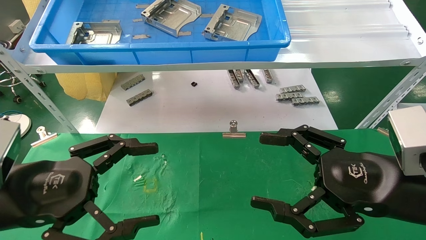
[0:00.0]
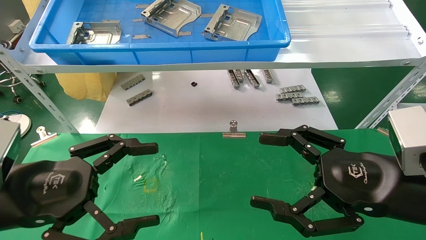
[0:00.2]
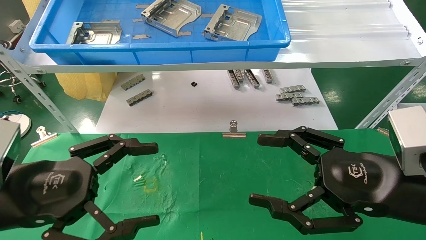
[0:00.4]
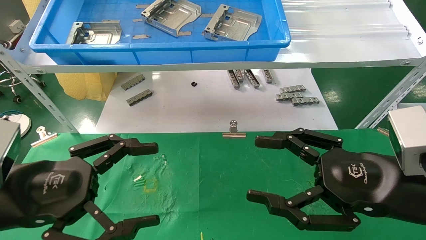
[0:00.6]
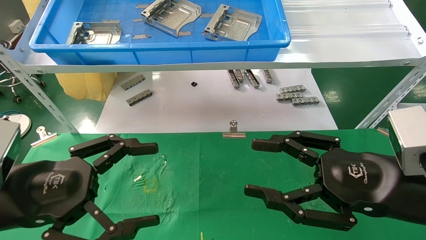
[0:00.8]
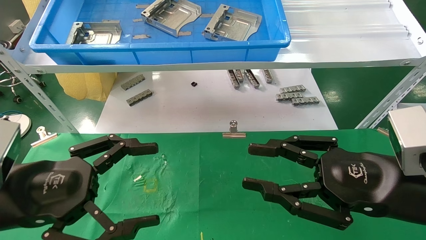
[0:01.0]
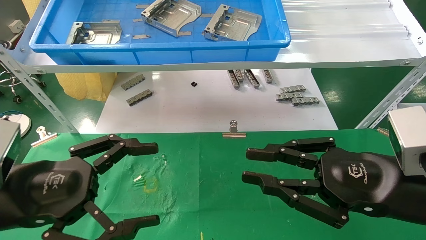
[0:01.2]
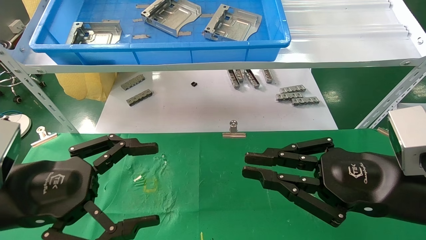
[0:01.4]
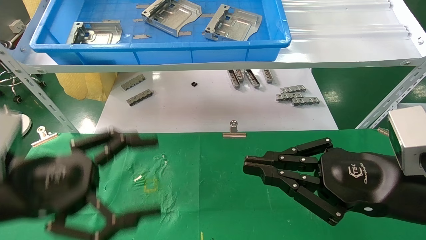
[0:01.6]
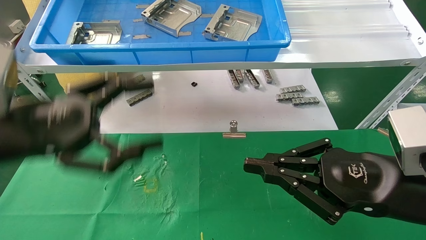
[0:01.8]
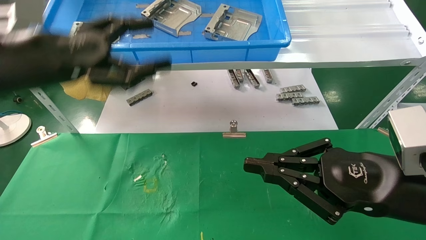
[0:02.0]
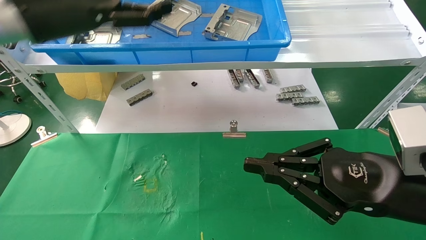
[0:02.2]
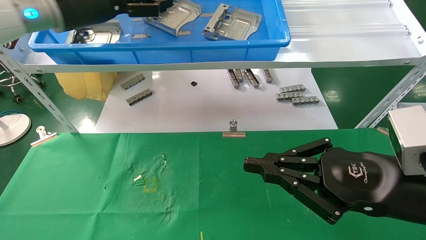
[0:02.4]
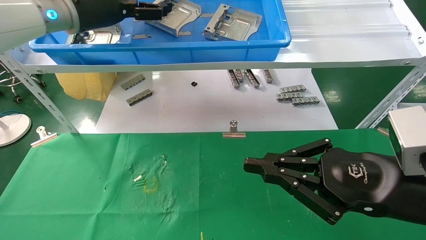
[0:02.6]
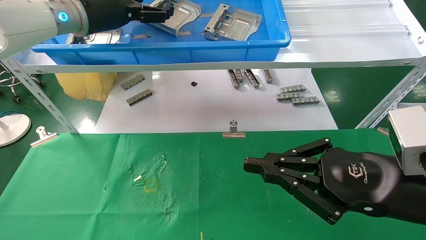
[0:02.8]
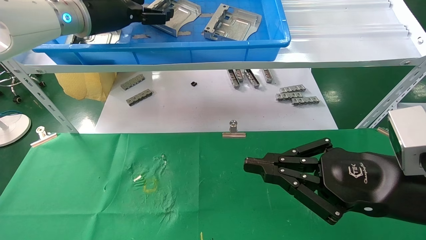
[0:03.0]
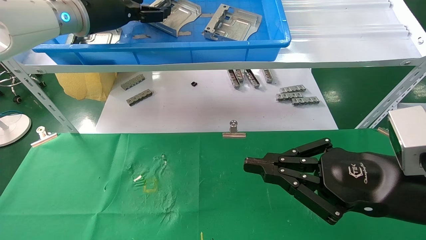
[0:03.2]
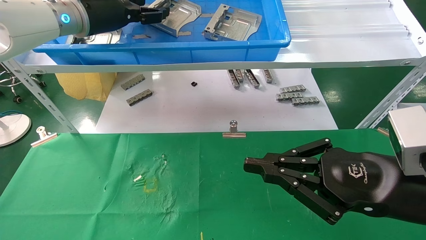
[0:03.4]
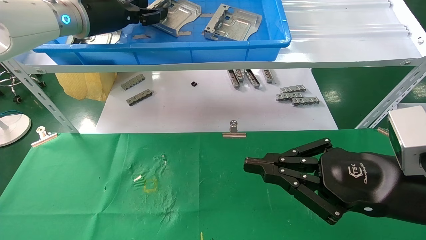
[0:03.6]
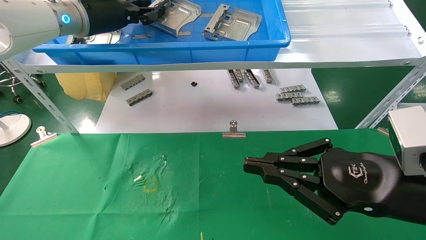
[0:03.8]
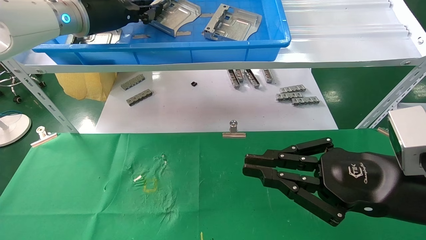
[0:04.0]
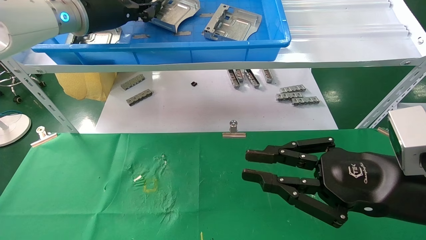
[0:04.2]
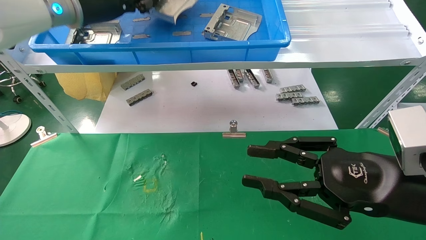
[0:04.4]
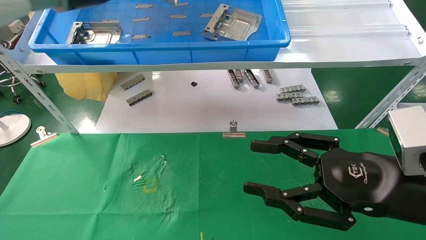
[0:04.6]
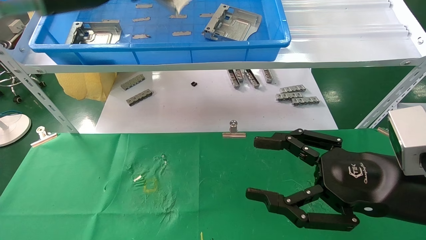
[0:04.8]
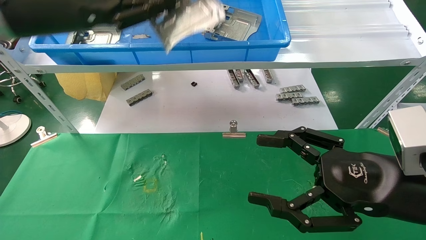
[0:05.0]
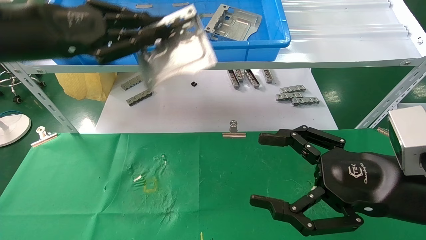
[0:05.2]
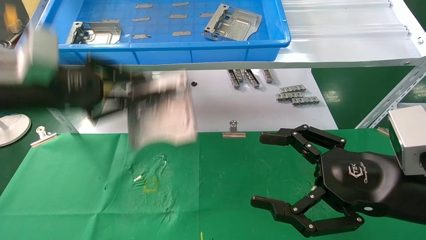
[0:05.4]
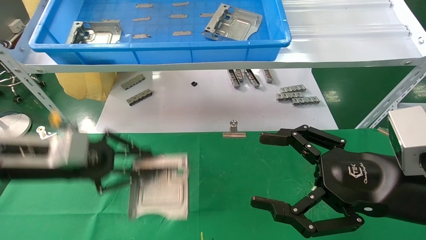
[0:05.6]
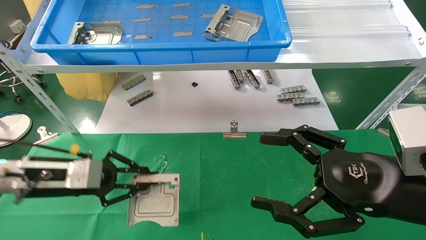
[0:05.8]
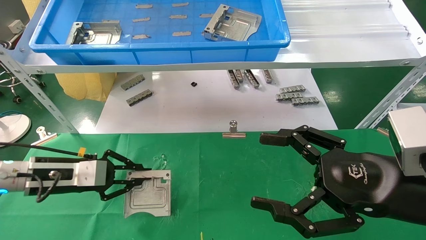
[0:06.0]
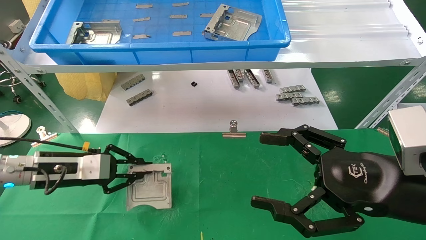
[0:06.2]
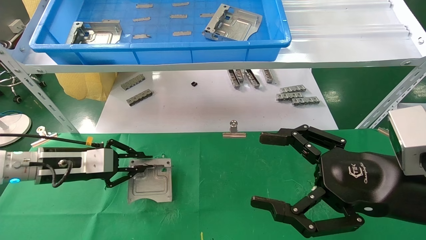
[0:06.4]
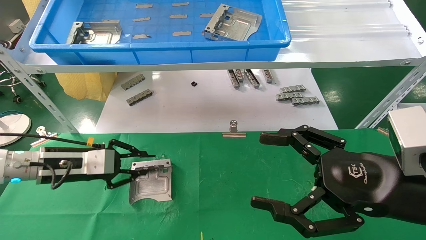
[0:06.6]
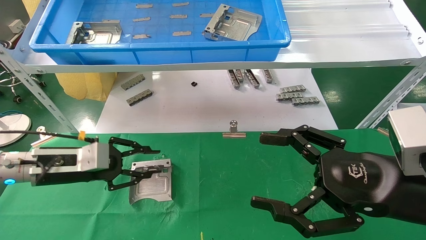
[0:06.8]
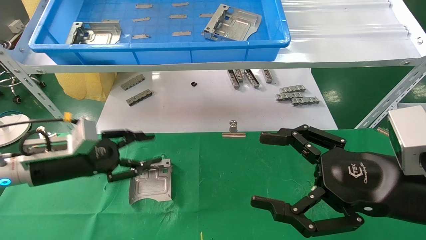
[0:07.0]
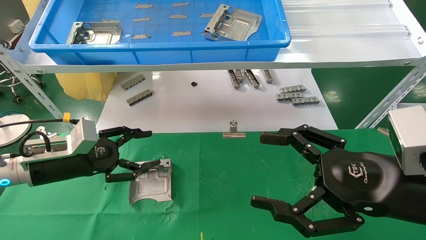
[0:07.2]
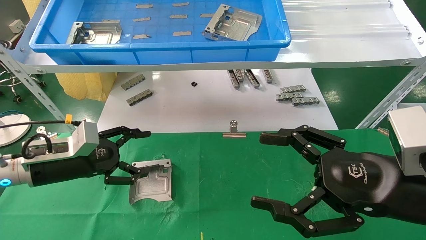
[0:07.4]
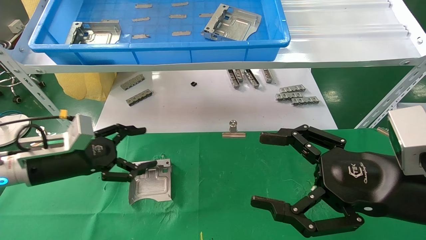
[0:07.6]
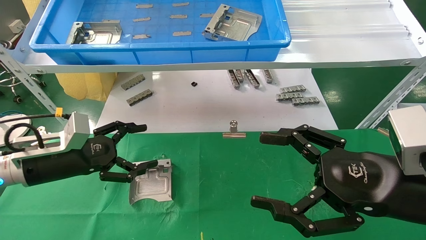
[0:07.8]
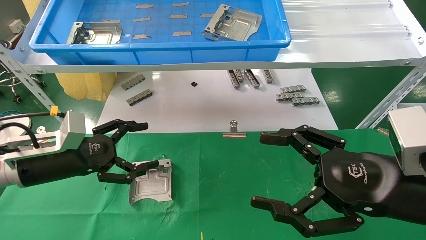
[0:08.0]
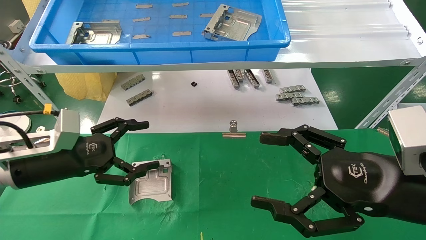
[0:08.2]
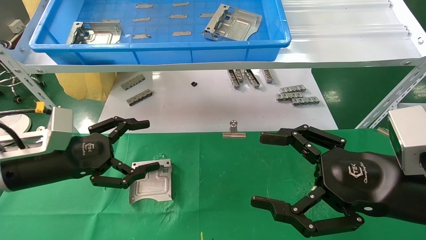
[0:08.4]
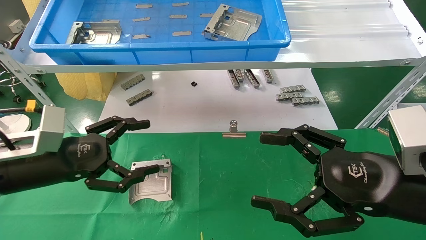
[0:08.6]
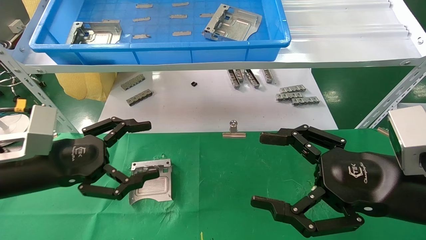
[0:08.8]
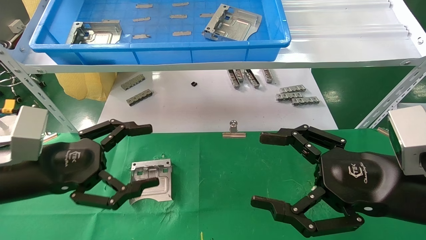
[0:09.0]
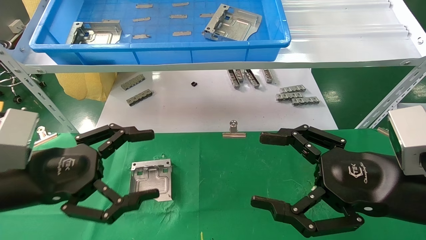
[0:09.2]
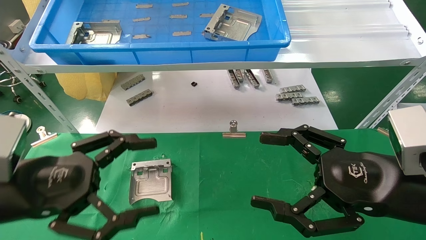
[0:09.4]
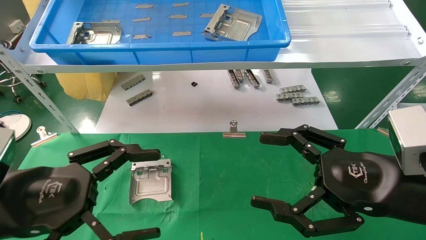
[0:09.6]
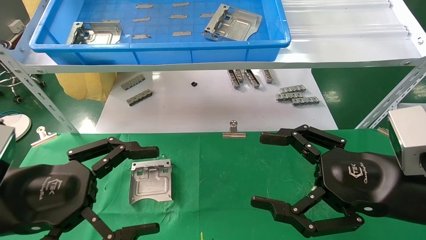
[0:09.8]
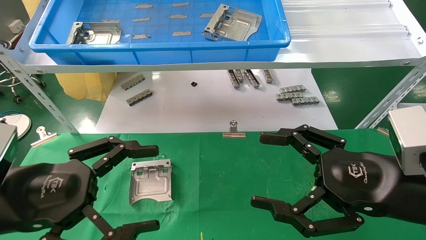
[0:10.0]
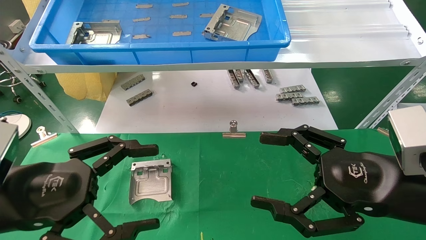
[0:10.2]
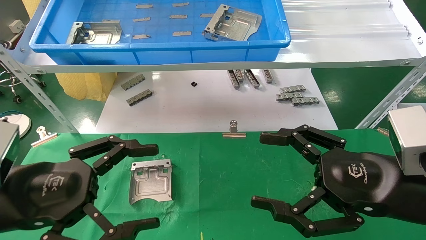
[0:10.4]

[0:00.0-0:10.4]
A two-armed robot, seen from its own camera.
Task of the whole recording: use the mechanical arm to pick up the parts and place them on the table.
Step, 1.4 to 4.4 s: Pick up the hard drive bracket from the feeding area.
Step, 4.6 to 7.2 s: Place the hard drive bracket into the box.
0.0 to 1.4 s: The right gripper closes its fingers.
1.4 to 3.0 s: The left gripper is displaced forward and upward by some 30 cm.
3.0 to 4.4 s: The left gripper closes its fingers.
4.4 to 6.0 s: The right gripper opens up; the left gripper travels downward by about 30 cm.
6.0 to 7.4 s: The left gripper opens its fingers.
7.4 to 9.0 s: The left gripper moves backward, some 10 cm.
9.0 to 10.4 s: The left gripper shifts some 5 cm backward.

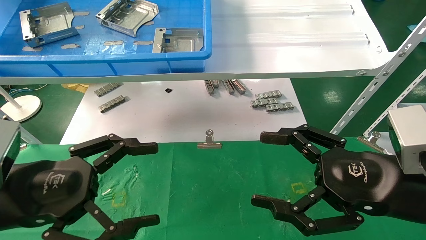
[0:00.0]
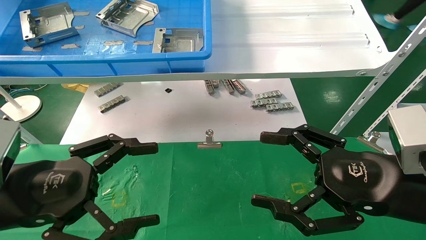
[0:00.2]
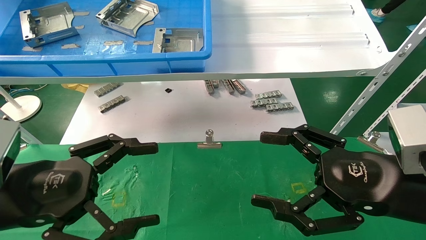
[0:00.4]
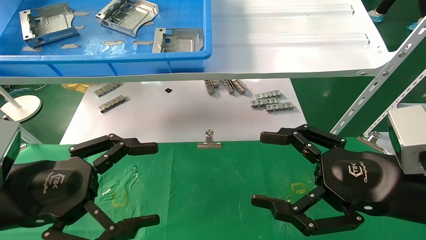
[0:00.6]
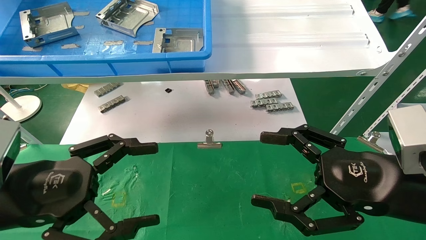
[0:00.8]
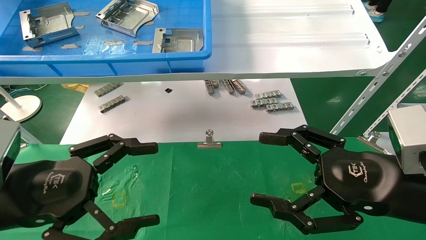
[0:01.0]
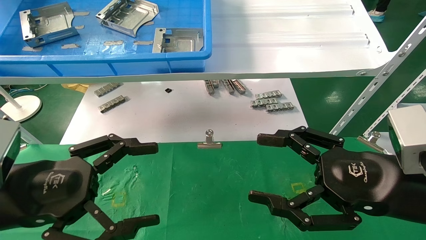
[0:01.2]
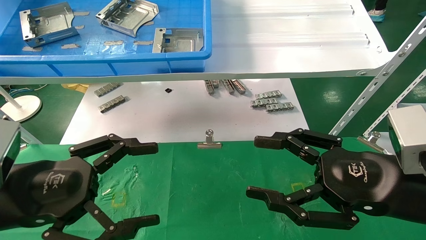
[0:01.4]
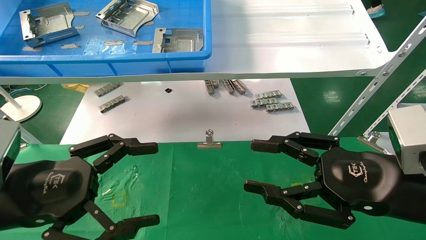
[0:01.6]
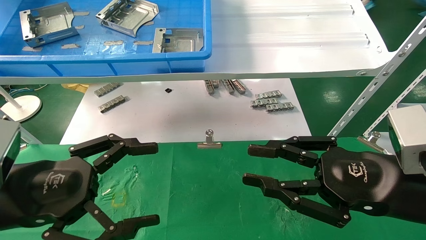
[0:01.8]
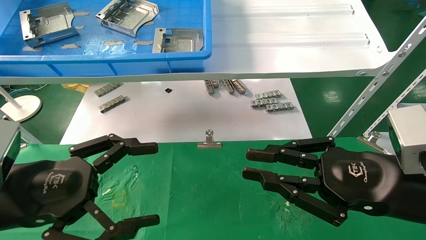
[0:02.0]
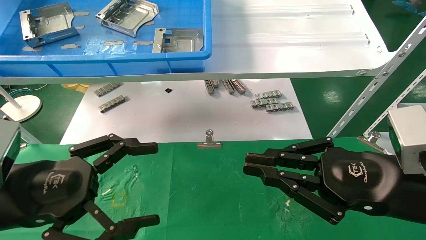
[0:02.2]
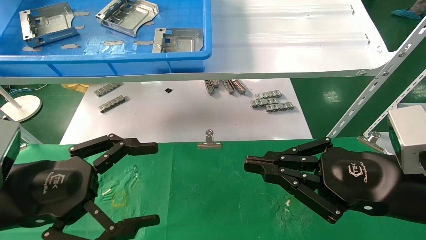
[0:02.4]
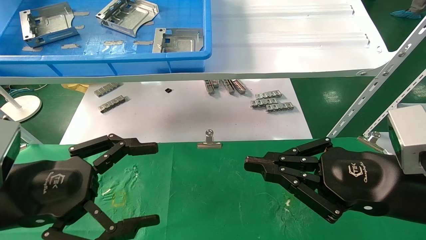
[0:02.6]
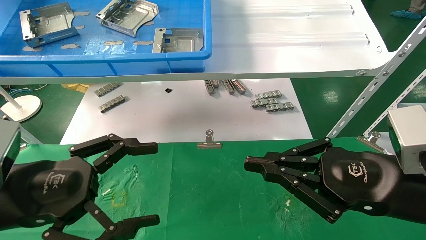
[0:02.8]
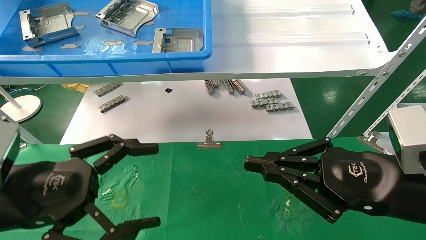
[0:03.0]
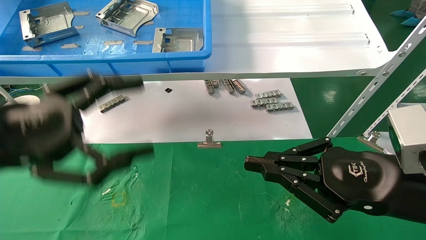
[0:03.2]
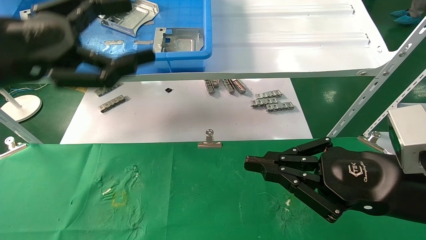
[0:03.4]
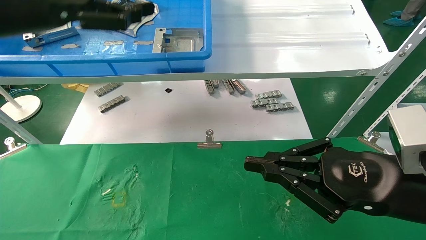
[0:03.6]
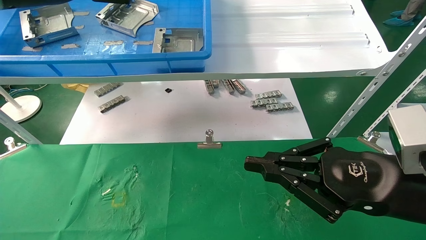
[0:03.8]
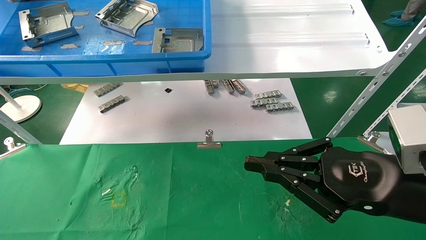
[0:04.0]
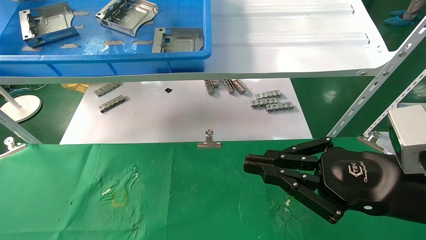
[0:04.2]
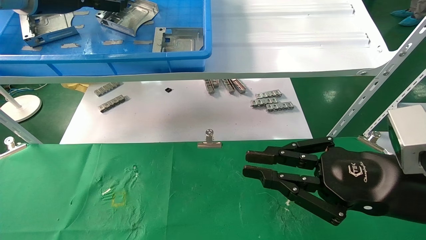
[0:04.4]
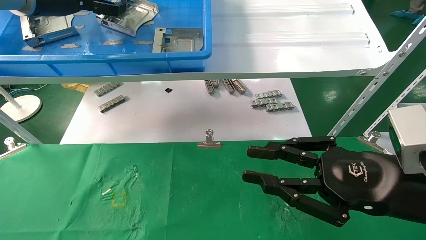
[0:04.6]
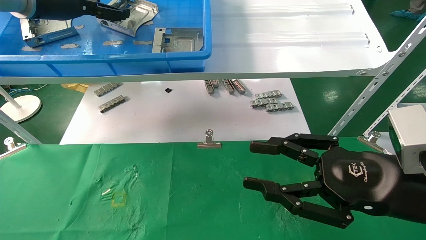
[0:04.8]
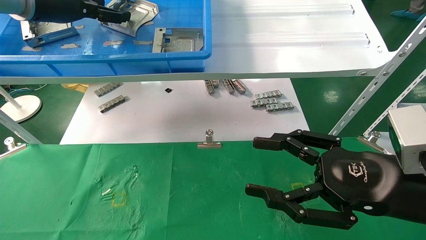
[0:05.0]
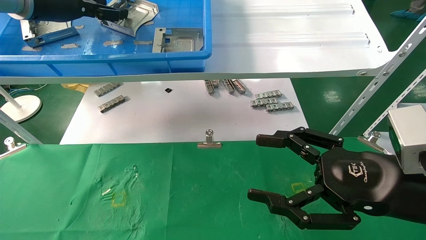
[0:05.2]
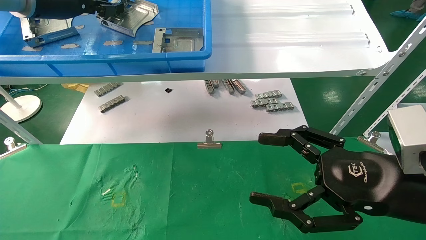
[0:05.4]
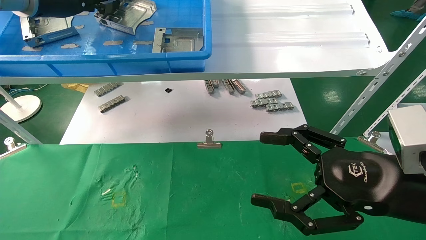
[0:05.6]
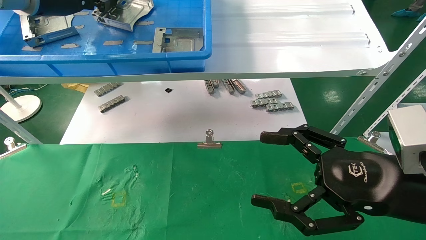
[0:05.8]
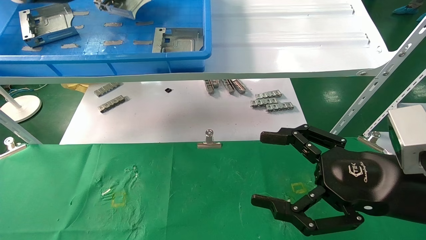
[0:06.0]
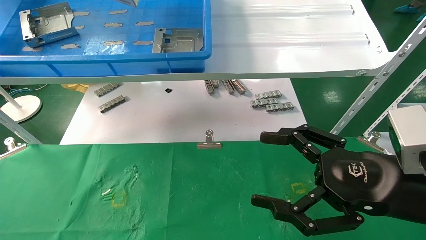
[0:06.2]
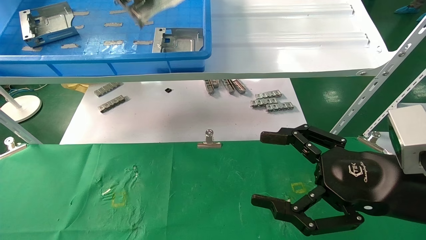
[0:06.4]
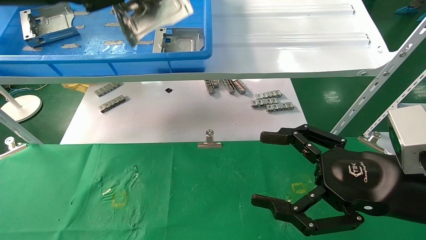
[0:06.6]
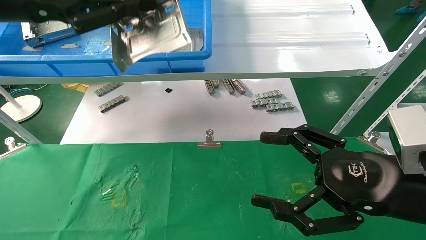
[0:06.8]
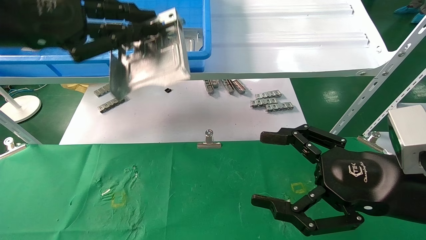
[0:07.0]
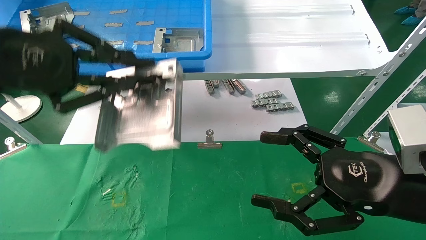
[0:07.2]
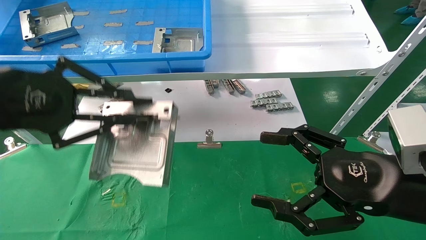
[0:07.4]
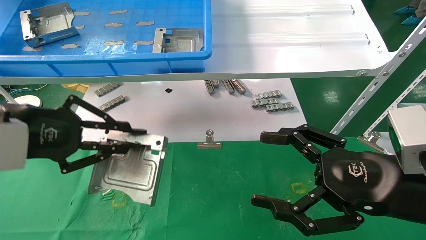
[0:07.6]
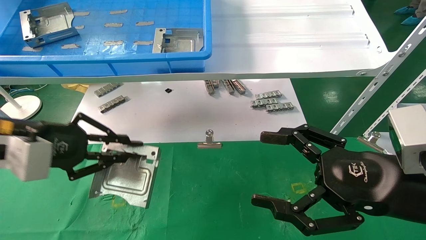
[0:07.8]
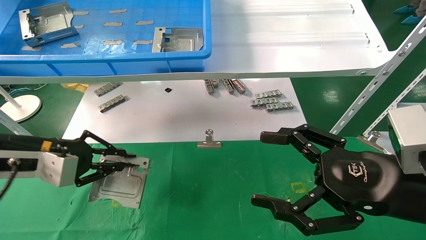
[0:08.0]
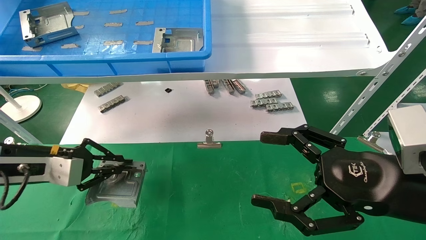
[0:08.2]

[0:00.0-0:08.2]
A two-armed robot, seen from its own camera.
Task of the whole recording: use the mechanical arm to pick up the parts and place them on the table.
Step, 3.4 to 5.8 s: Pick up the hard drive bracket from the feeding area.
0.0 to 1.6 s: Neither gripper changes place.
1.6 to 3.2 s: The left gripper shifts roughly 10 cm upward. The right gripper closes its fingers.
3.2 to 5.0 s: The left gripper goes some 25 cm forward and upward. The right gripper opens its fingers.
5.0 to 6.6 s: The left gripper is displaced backward by about 10 cm, and closes; the right gripper opens.
6.6 to 8.2 s: The left gripper heads downward, covering about 25 cm.
